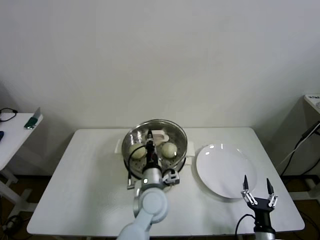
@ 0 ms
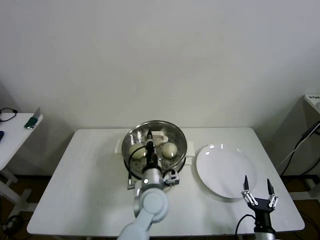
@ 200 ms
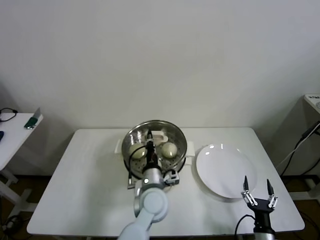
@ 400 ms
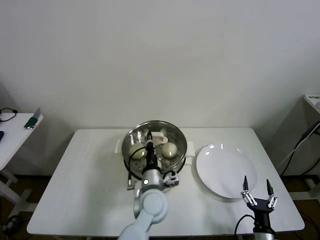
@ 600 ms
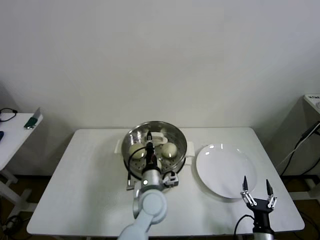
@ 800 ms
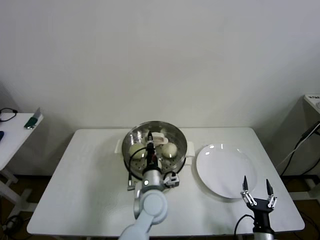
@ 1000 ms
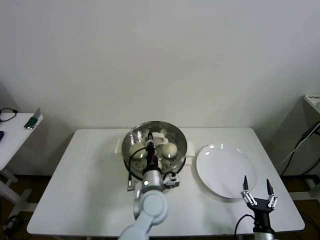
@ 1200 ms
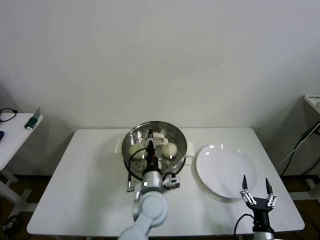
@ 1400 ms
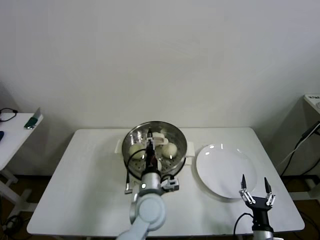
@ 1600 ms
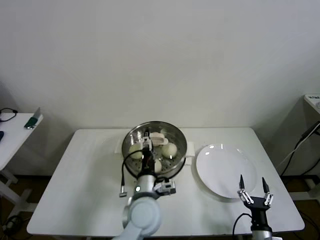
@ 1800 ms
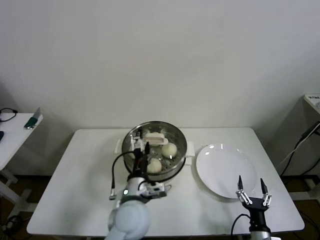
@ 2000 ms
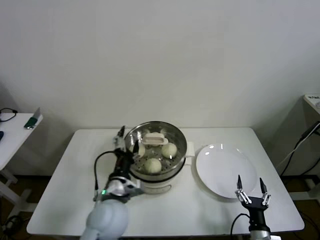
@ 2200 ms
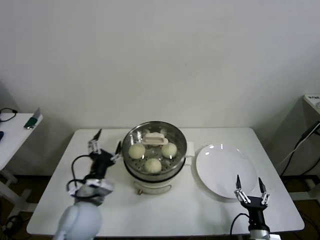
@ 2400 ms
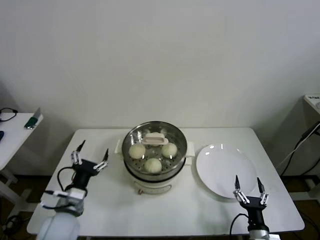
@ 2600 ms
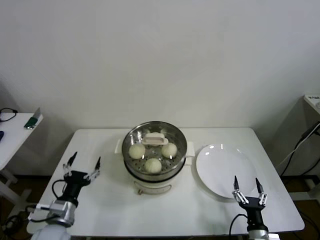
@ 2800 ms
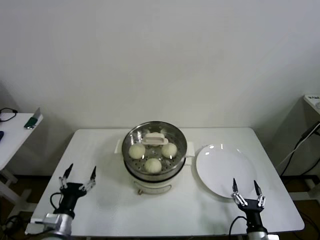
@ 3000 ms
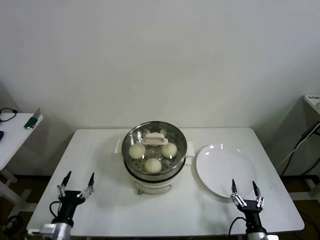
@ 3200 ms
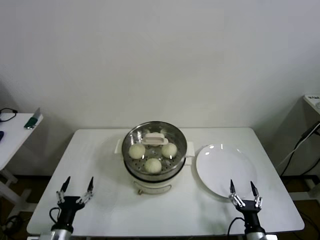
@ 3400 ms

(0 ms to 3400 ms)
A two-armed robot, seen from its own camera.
0 ms - 1600 ms: The left gripper opens its fingers.
1600 ms - 3400 ms: The left gripper moves to the left and backward, approximately 35 cm, and opens its fingers.
